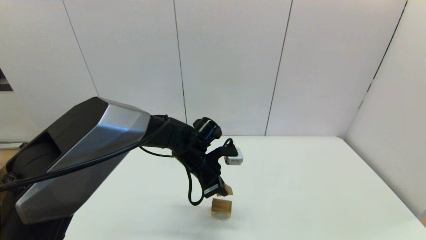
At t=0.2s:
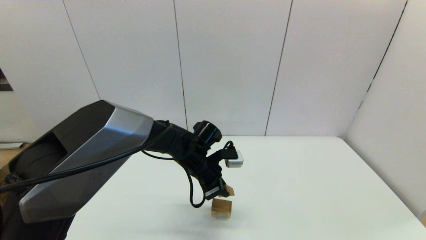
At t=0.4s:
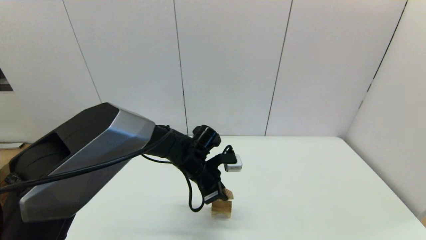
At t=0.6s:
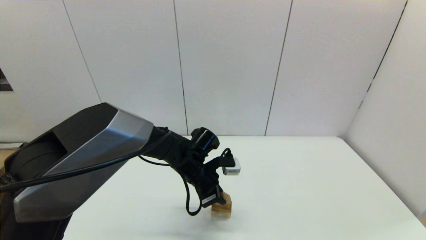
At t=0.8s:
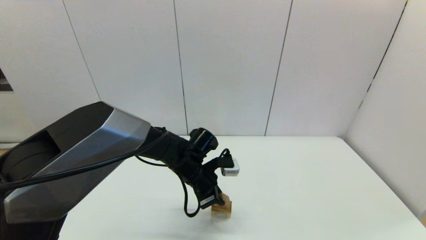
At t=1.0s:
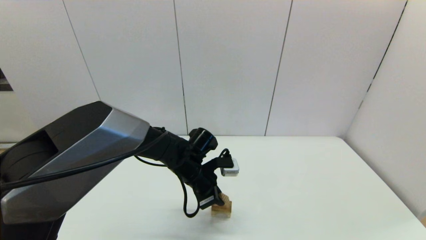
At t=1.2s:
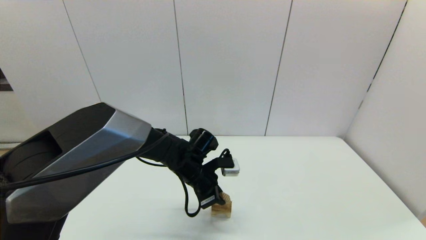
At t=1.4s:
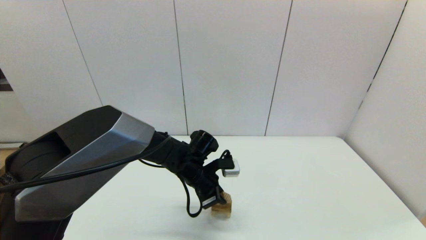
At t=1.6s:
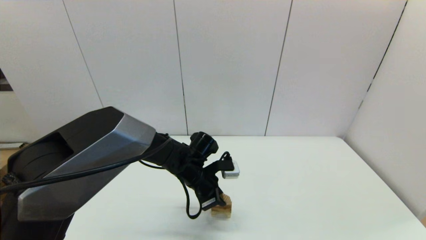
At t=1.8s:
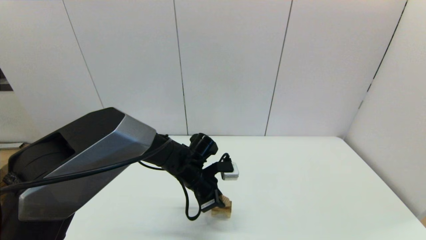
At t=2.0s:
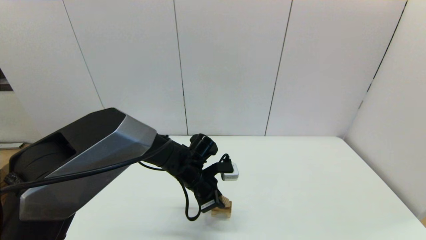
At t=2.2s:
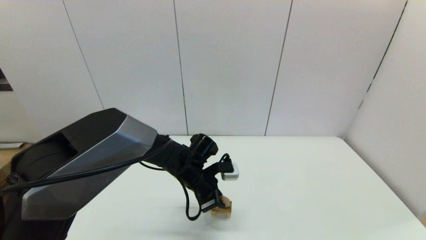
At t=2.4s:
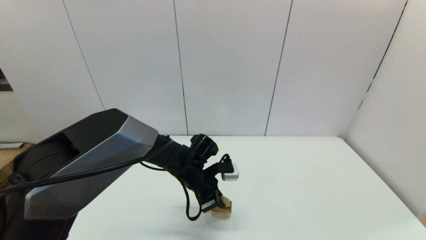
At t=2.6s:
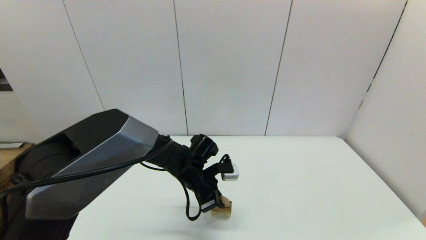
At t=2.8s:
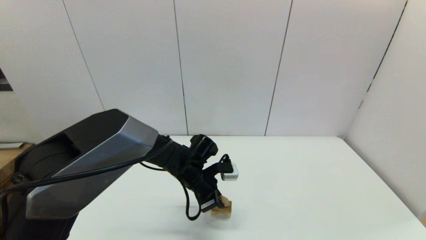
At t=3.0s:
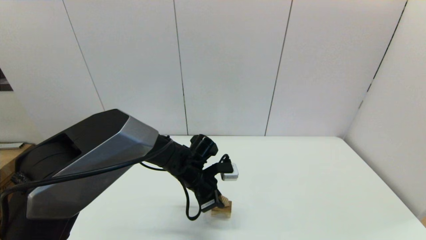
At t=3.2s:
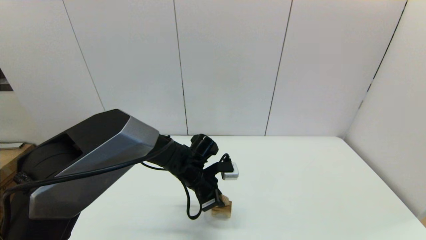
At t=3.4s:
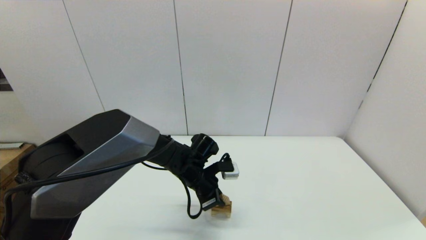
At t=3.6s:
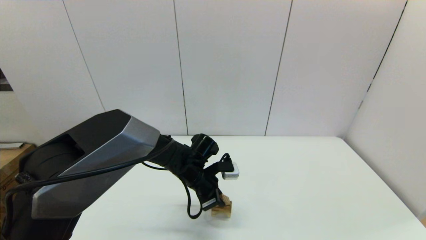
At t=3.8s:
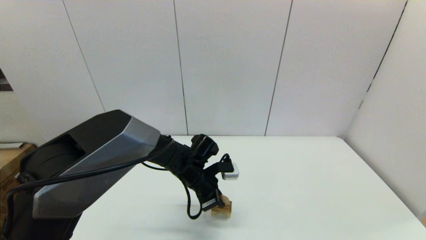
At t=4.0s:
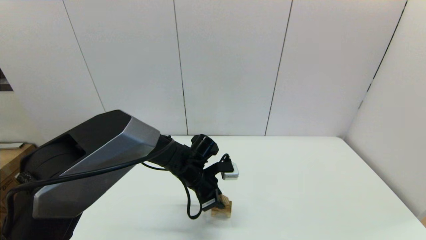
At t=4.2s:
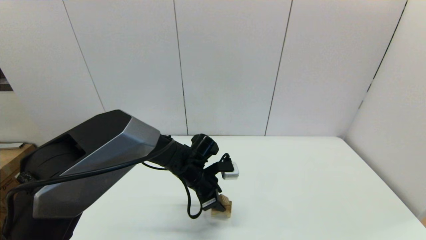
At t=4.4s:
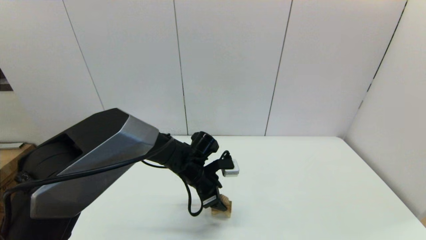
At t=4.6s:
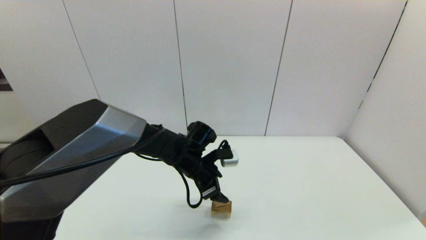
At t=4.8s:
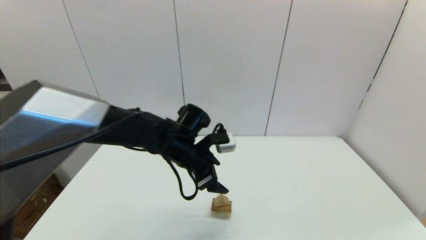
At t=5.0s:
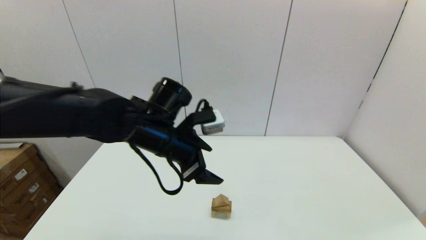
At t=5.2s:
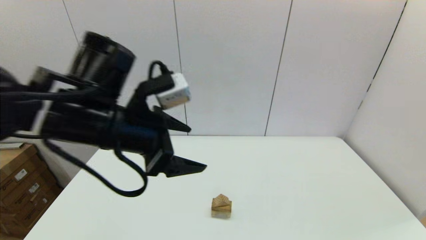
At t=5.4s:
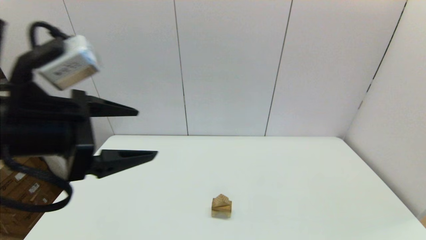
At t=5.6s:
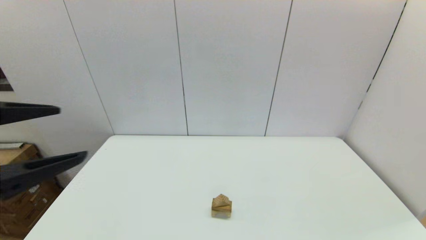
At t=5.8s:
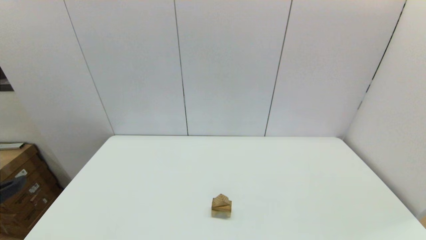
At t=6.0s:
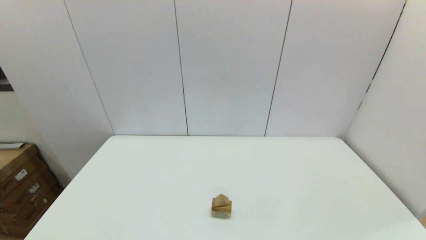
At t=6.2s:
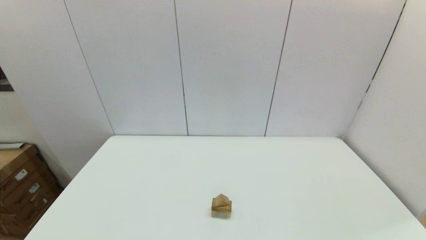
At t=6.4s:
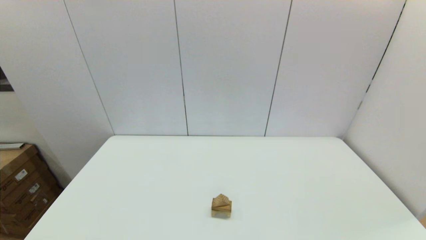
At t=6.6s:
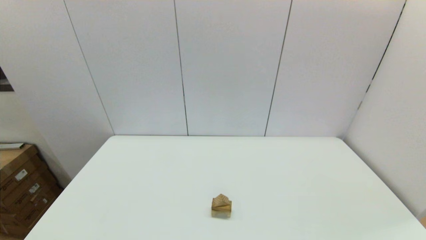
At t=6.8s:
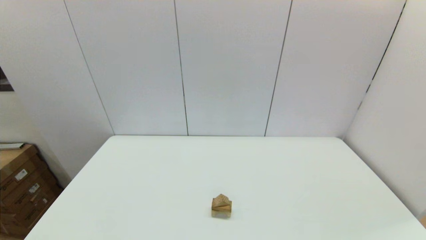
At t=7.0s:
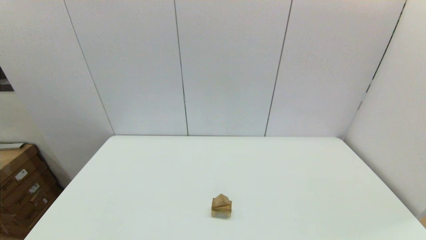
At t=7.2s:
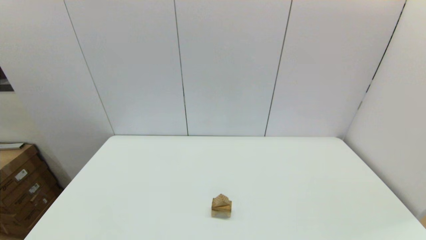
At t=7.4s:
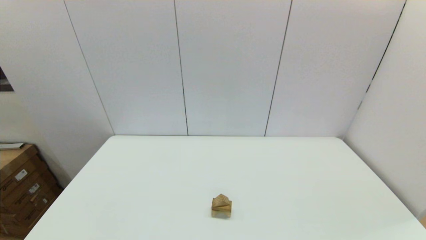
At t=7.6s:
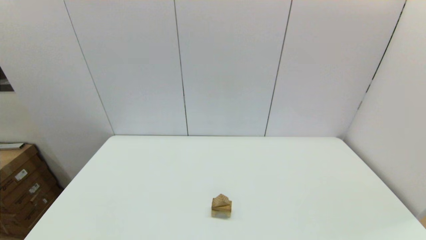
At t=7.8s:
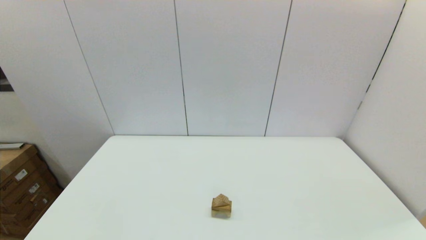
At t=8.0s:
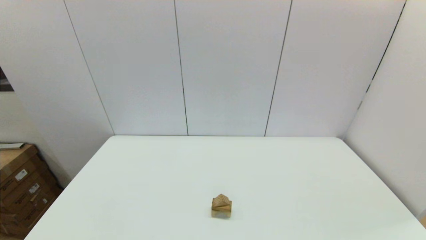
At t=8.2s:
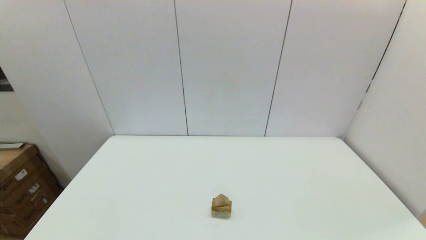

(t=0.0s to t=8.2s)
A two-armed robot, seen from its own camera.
Task of the whole recording: place the arched building blocks in the center of the table, set up the rectangular building blocks, and then set up the triangular building blocks.
t=0.0s - t=1.6s: The grippers make only small movements.
t=1.6s - t=3.2s: The two grippers keep their place.
t=3.2s - t=5.0s: The left gripper moves upward, approximately 15 cm, and opens its fingers.
t=5.0s - t=6.6s: The left gripper goes some 40 cm backward and to the left.

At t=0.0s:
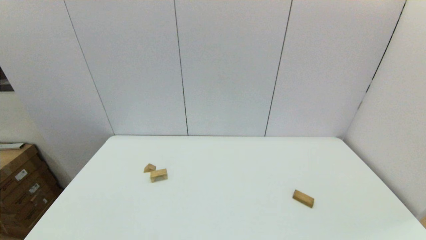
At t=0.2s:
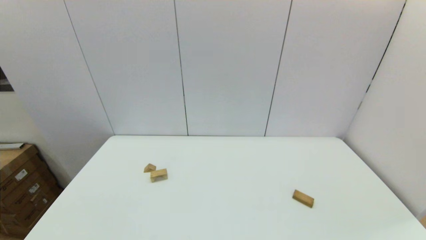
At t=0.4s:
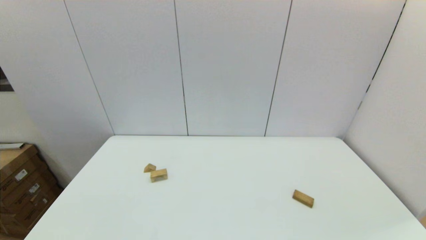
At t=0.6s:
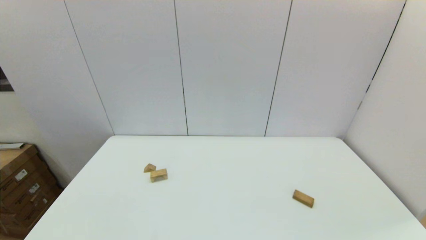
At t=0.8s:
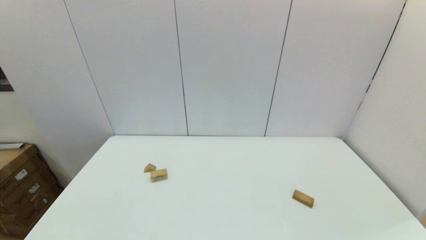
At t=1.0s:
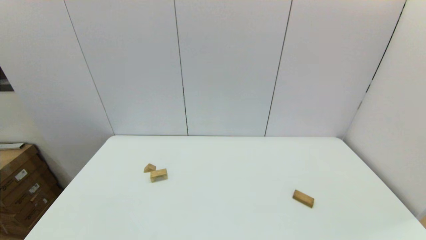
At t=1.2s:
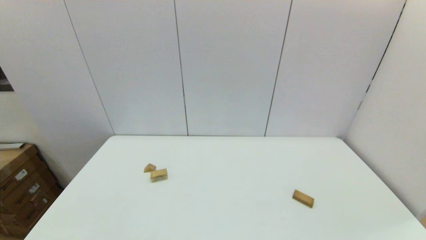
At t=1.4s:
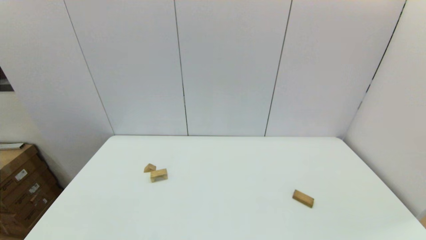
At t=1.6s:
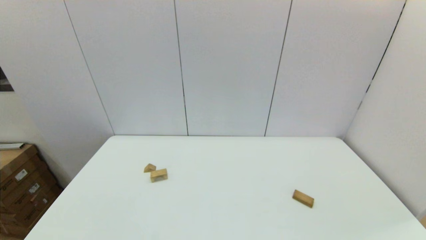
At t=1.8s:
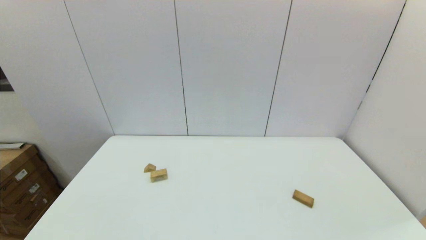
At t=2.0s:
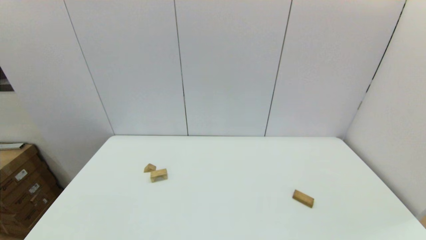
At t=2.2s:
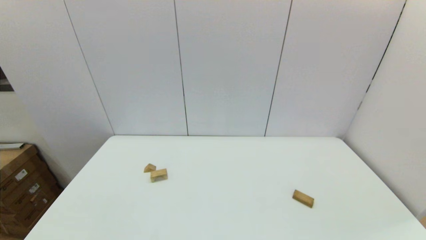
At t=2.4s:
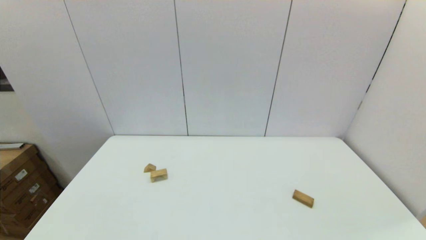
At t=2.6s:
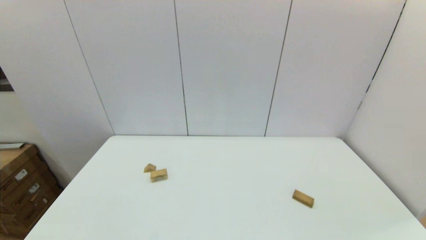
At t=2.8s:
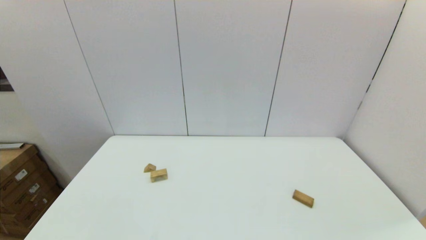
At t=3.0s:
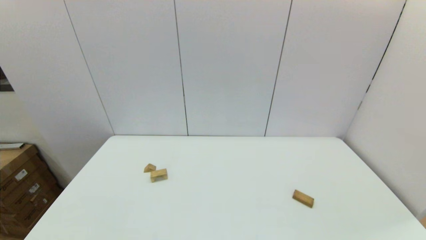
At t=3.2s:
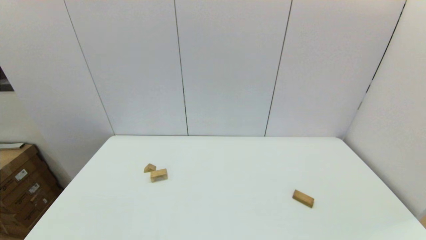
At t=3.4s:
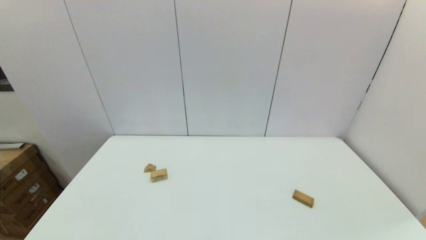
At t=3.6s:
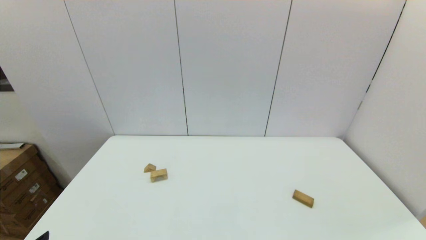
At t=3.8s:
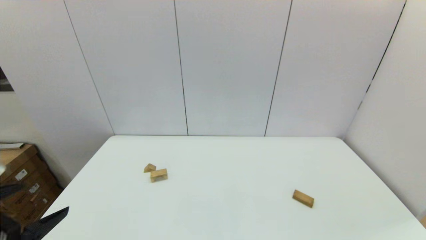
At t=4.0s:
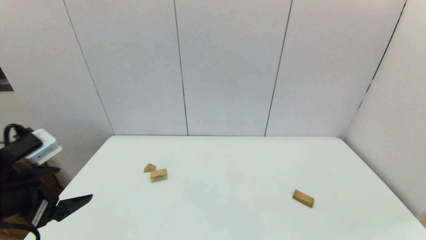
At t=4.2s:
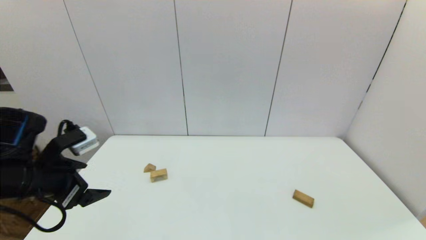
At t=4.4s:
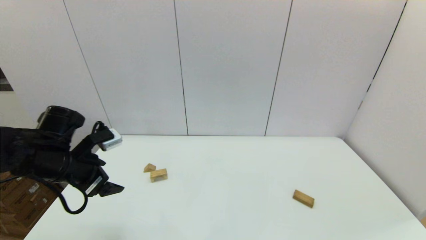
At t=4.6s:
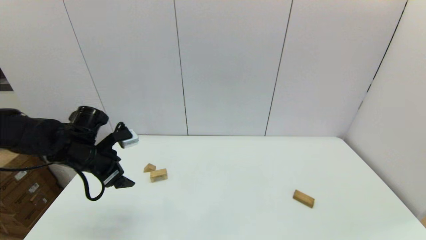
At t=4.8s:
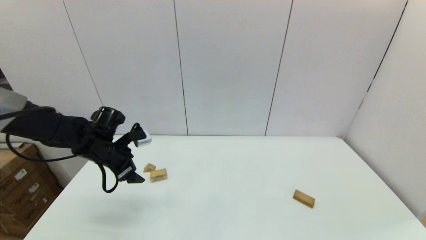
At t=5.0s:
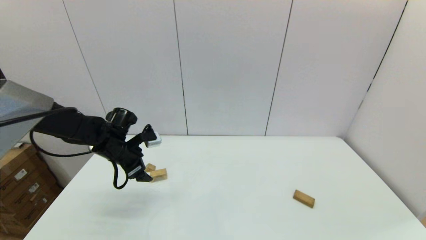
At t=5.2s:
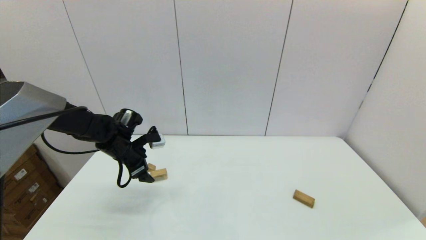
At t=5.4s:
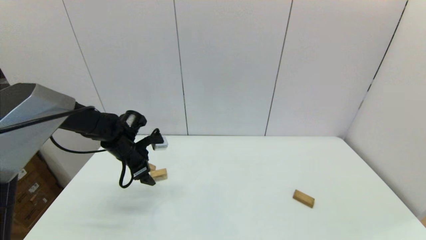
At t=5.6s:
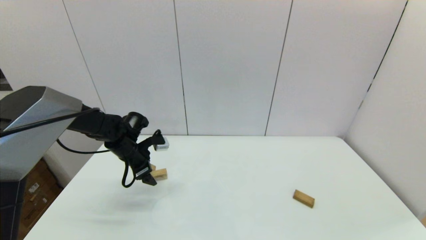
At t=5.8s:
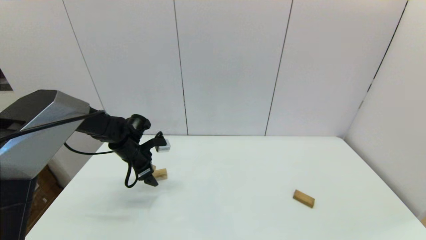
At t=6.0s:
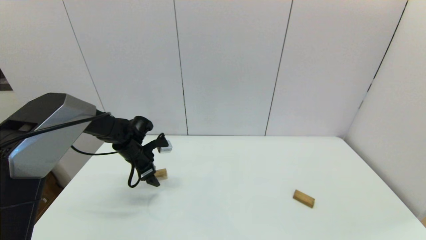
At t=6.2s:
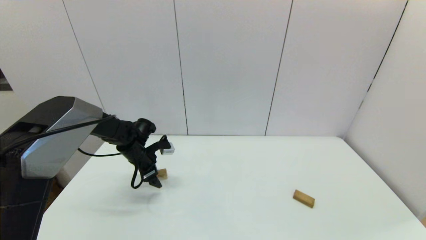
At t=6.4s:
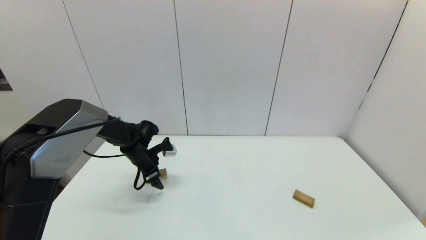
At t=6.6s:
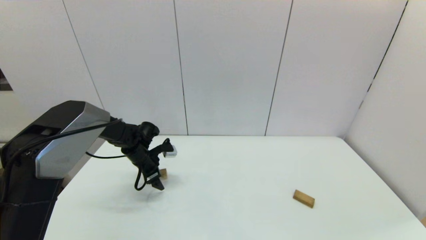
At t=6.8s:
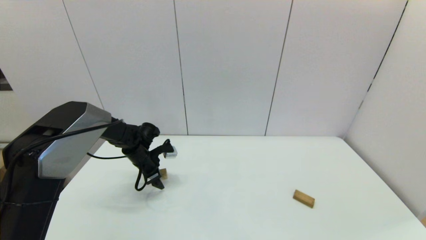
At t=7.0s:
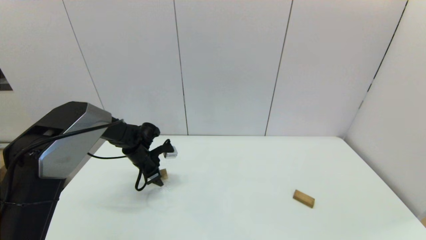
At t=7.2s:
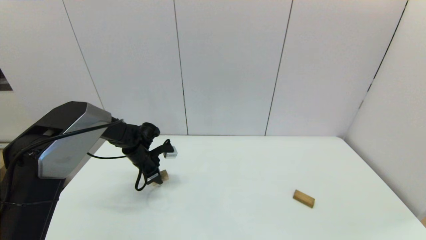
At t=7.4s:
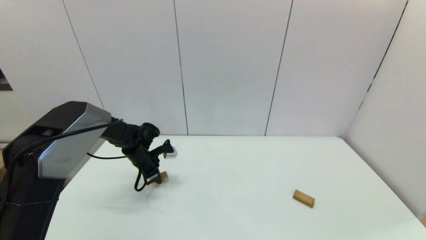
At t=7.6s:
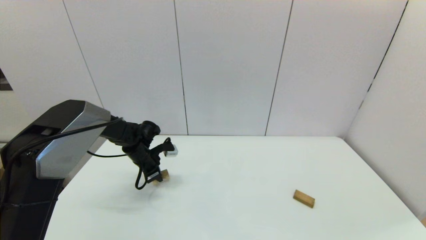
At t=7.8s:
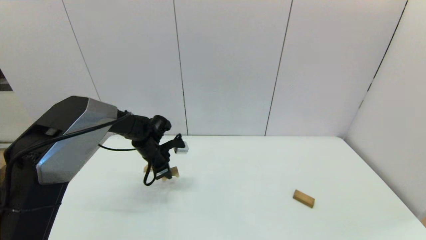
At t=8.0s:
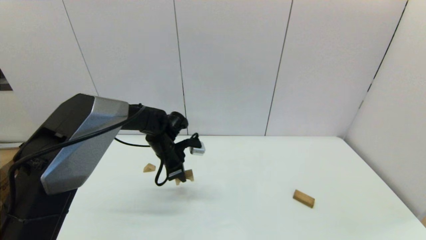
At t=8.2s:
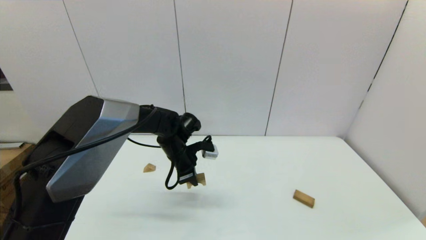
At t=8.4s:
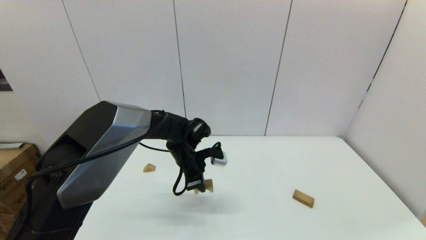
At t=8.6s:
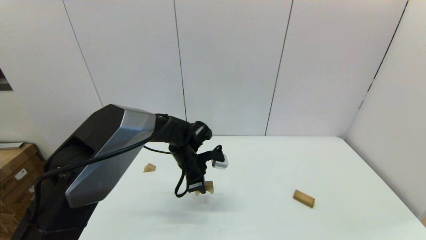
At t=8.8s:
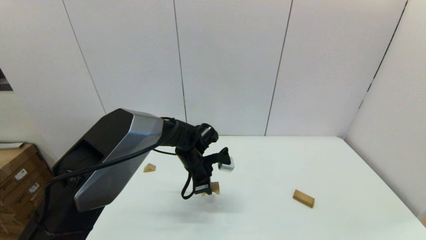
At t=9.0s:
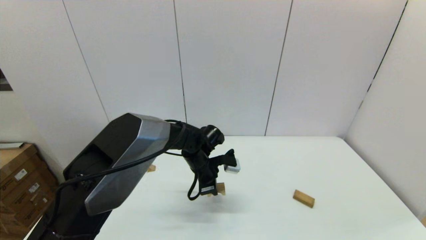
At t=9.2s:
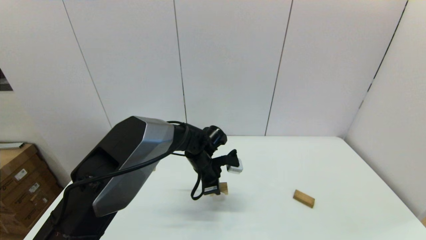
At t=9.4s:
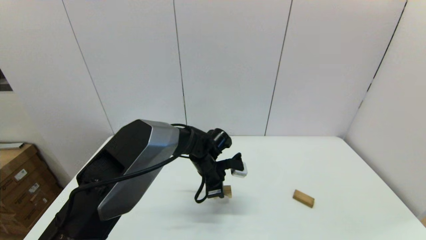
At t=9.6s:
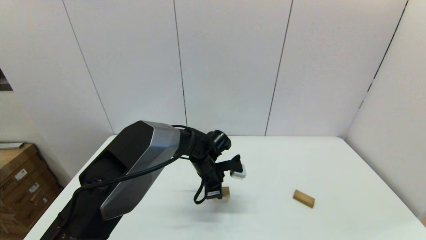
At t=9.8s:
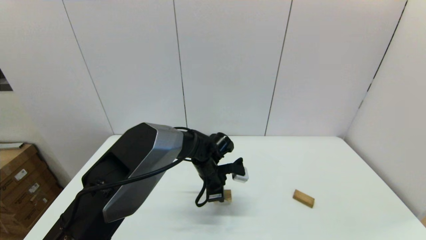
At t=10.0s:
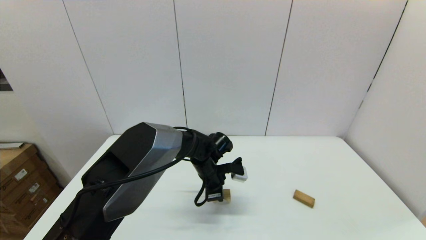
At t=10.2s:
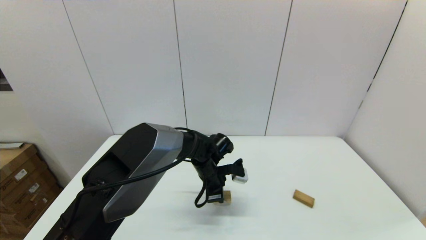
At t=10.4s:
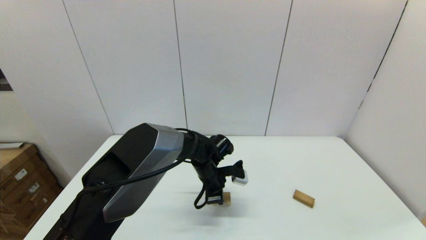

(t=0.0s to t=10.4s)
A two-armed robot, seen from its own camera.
Task of the whole recording: place the arched building blocks in the center of the table, set up the rectangular building blocks, and then set up the triangular building blocks.
Step, t=3.8s - t=7.2s: Grasp the arch-shaped block with the left gripper.
t=0.0s - t=3.0s: Both grippers stay about where they are.
t=3.0s - t=4.4s: The left gripper heads forward, covering about 30 cm.
t=4.4s - t=6.0s: The left gripper travels forward and downward by about 20 cm.
t=6.0s - t=7.4s: The left gripper closes up.
t=7.4s - t=9.0s: The left gripper travels to the right by roughly 20 cm.
t=9.0s - t=10.4s: There are only small adjustments of the grippers.
